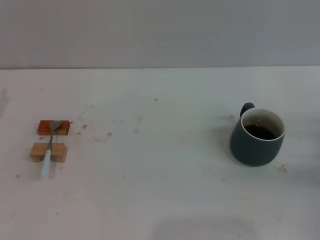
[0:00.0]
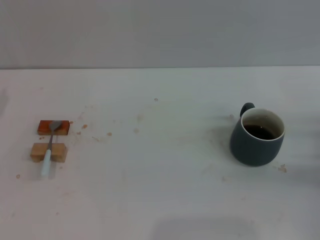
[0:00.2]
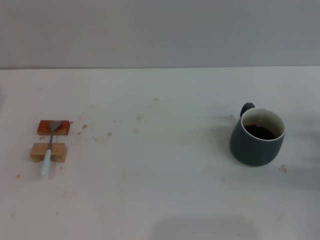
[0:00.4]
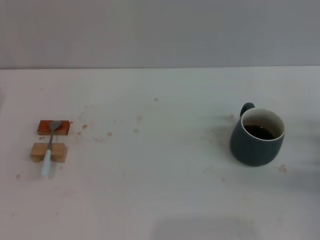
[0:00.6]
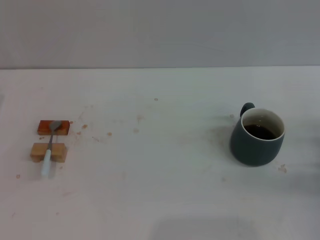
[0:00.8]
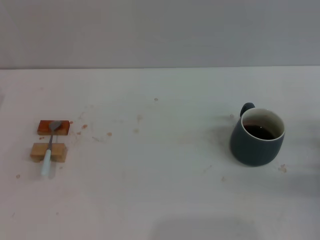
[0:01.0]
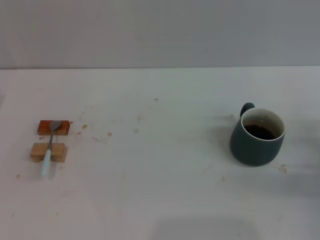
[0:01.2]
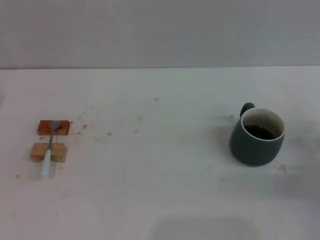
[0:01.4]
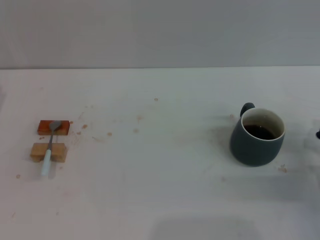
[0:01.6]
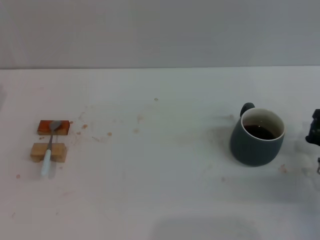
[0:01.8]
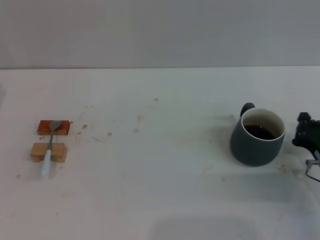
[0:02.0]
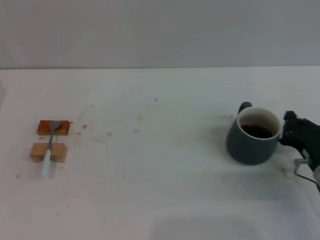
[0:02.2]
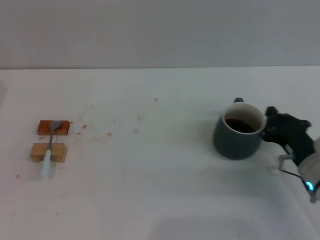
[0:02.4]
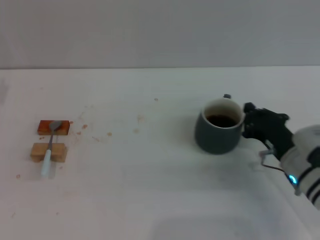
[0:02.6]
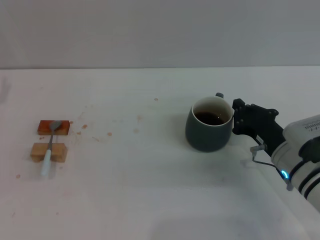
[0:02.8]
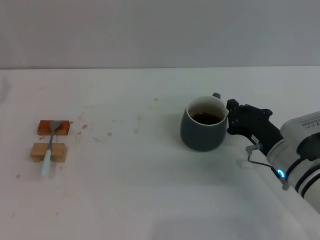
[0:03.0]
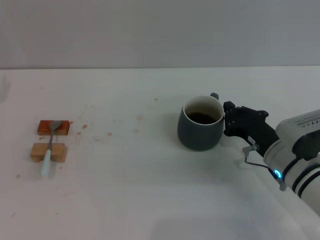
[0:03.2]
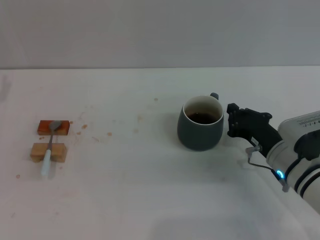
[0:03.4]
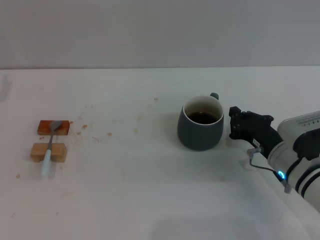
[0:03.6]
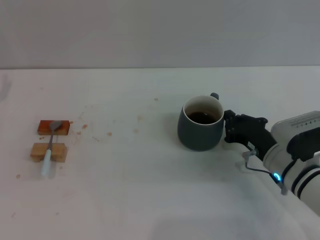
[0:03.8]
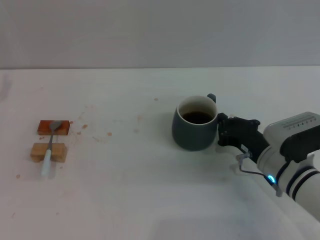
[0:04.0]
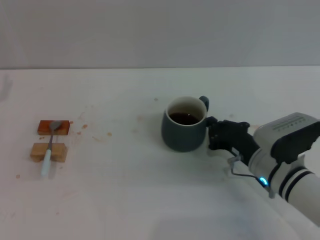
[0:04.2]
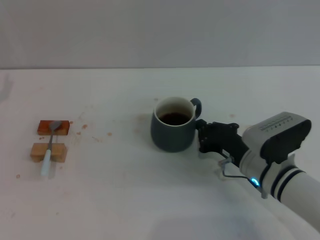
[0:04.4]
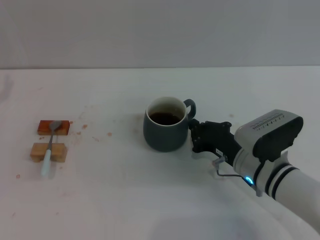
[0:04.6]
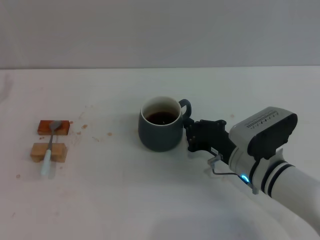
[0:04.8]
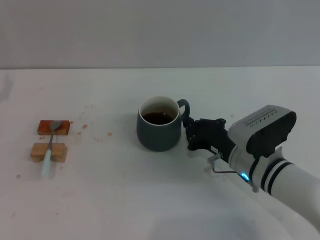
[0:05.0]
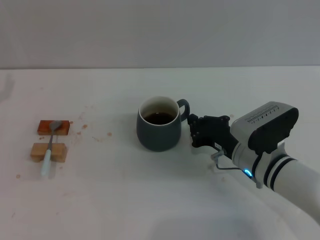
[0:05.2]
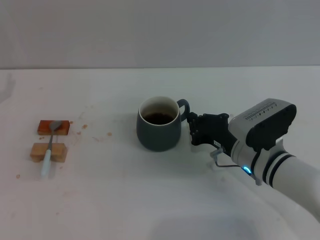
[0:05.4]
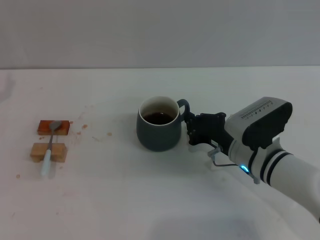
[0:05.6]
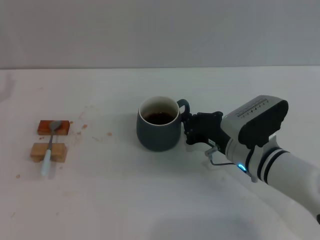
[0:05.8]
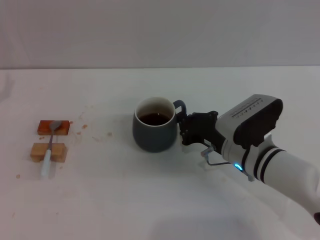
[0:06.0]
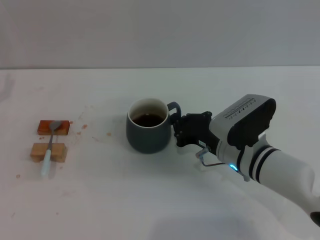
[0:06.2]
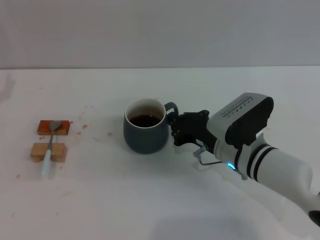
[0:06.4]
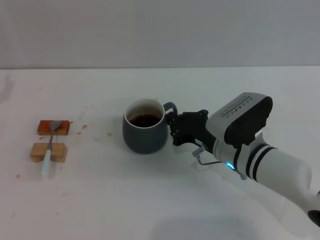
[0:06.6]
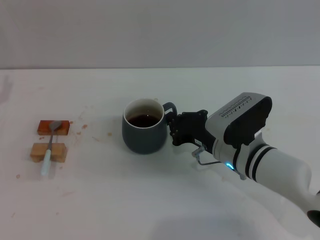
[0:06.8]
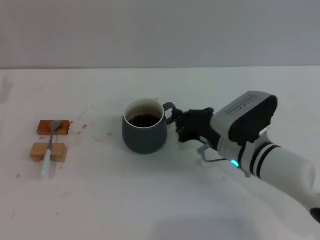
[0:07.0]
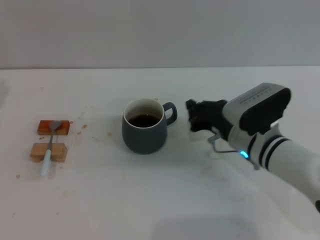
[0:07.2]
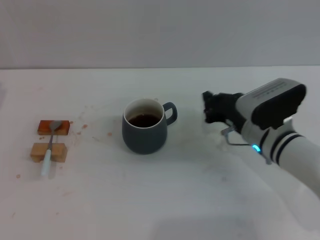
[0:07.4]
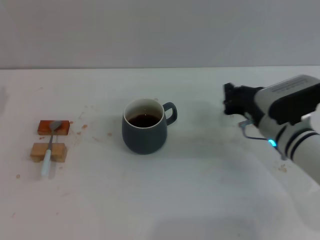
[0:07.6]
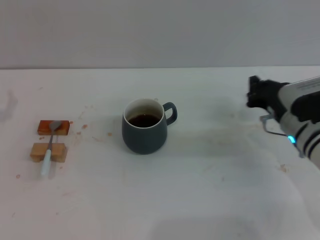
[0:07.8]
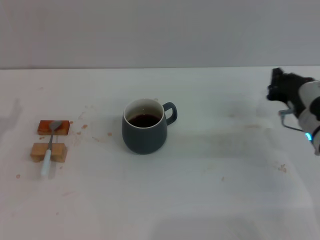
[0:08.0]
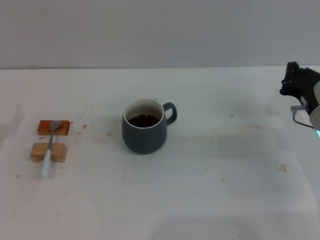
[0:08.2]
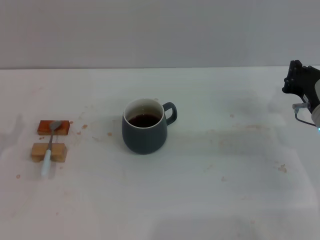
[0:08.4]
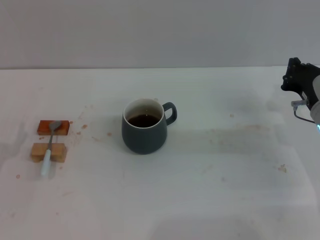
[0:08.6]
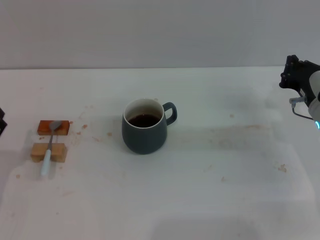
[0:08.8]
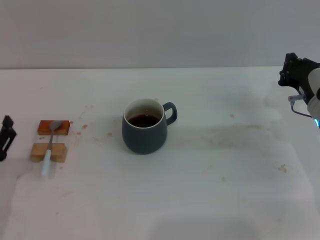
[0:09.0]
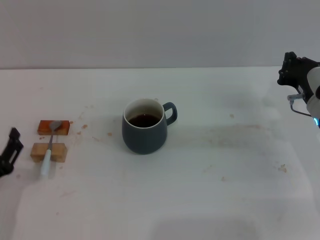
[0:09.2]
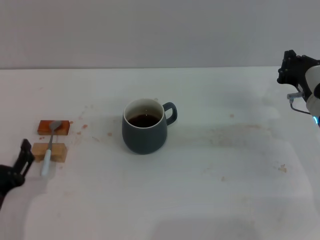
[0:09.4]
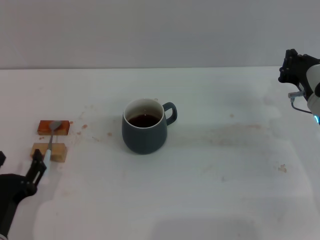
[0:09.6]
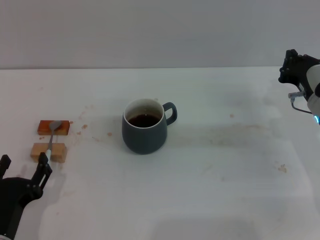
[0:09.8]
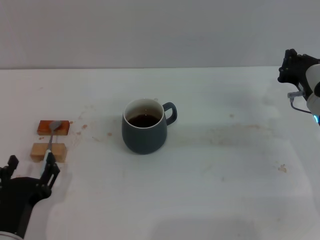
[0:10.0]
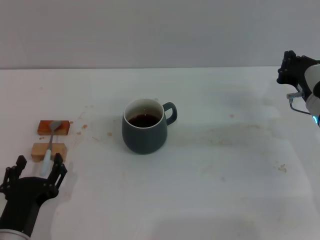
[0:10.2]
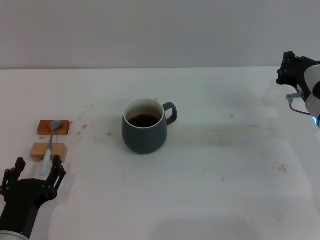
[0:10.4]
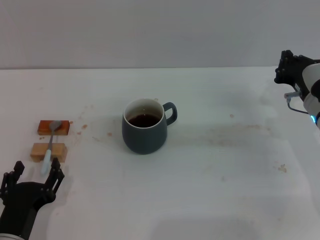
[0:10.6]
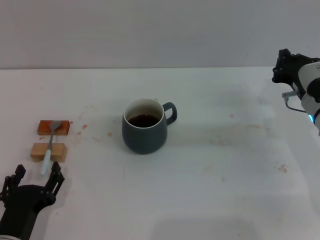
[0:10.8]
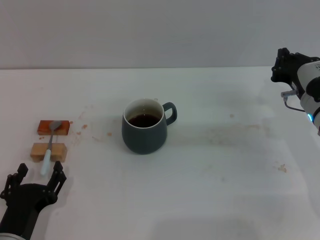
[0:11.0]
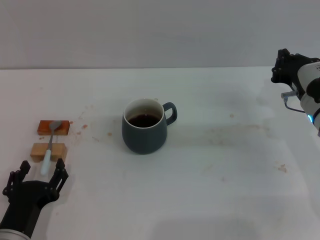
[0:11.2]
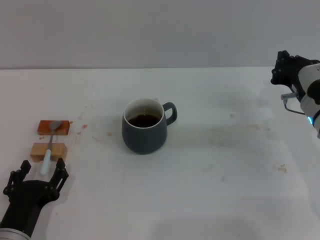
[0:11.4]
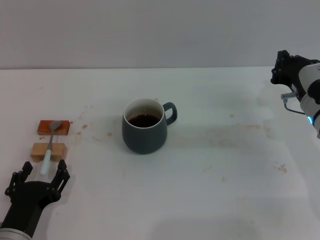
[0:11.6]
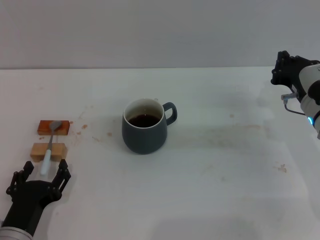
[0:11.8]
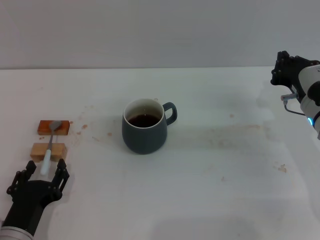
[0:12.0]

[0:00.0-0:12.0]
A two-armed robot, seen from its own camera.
Task of the whole recording: Move the grey cup to the center, lift the blue spoon, stir it three times in the cup, and put the spoon into the cup.
Step, 0:00.0 to 0:07.2: Move the cup with coffee to the center of view with the right gripper.
0:00.0 to 0:01.6: The right gripper ends up about 5 cm from where it was, and closes.
0:01.6 to 0:03.0: The right gripper is displaced to the left by roughly 10 cm.
0:03.0 to 0:04.4: The grippers move only a little.
0:04.4 to 0:06.0: The grippers make only small movements.
0:06.0 to 0:07.6: The right gripper is displaced to the right by about 5 cm.
0:07.6 to 0:09.0: The right gripper moves to the right, roughly 5 cm, while the left gripper moves backward, to the right and downward, about 15 cm.
0:09.0 to 0:10.4: The left gripper shifts roughly 10 cm to the right.
0:10.4 to 0:12.0: There are only small adjustments of the grippers.

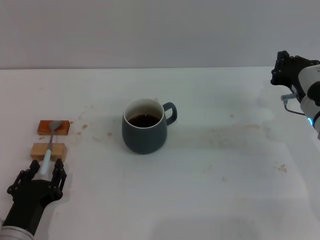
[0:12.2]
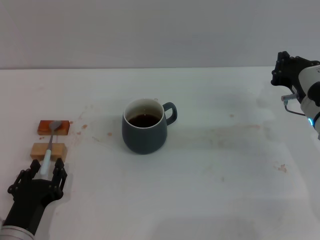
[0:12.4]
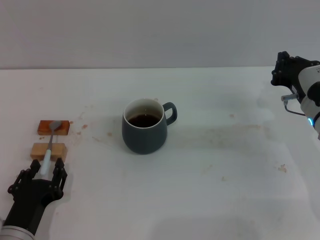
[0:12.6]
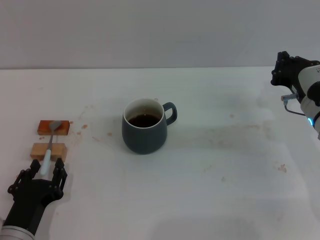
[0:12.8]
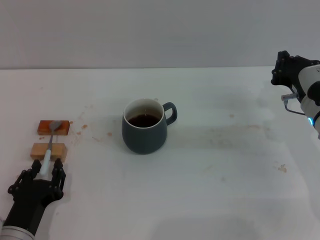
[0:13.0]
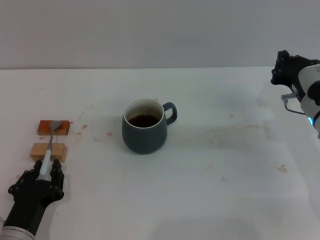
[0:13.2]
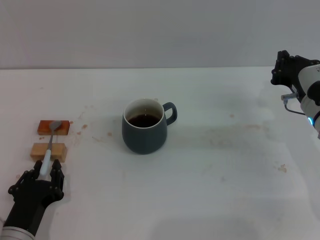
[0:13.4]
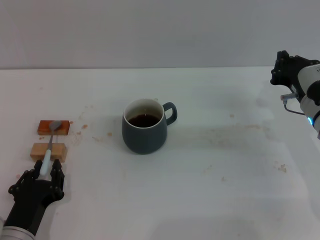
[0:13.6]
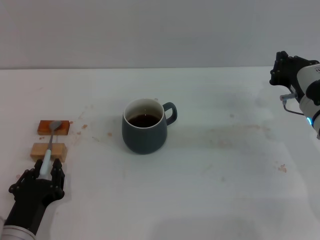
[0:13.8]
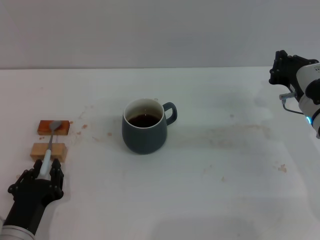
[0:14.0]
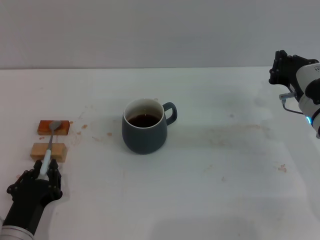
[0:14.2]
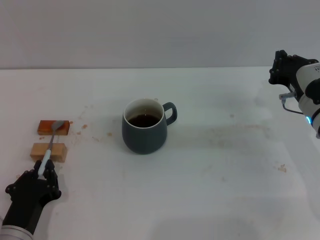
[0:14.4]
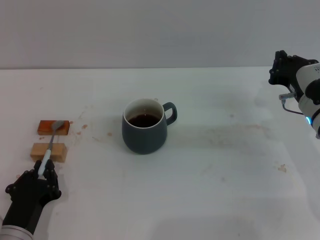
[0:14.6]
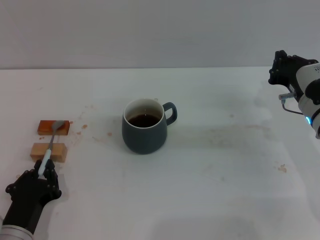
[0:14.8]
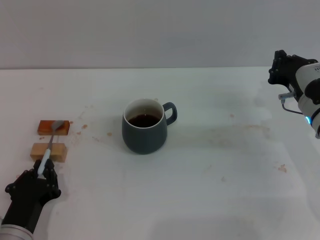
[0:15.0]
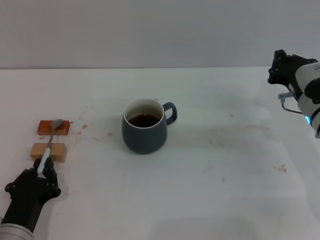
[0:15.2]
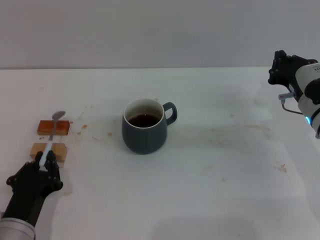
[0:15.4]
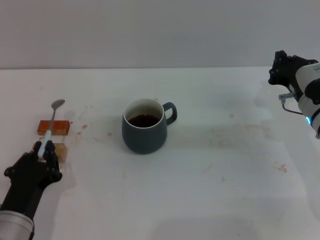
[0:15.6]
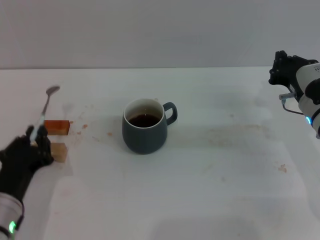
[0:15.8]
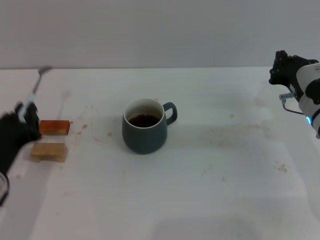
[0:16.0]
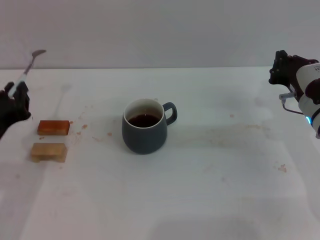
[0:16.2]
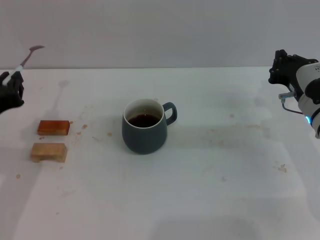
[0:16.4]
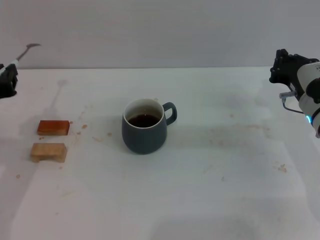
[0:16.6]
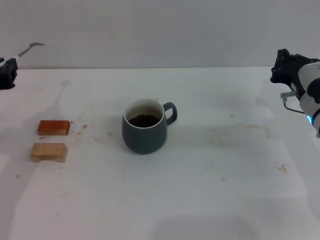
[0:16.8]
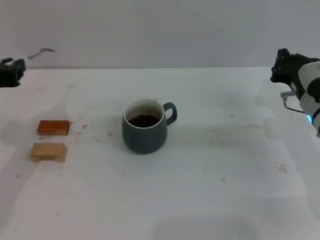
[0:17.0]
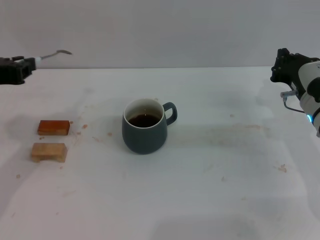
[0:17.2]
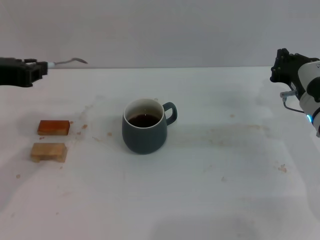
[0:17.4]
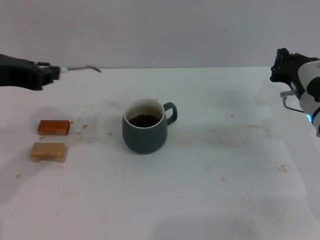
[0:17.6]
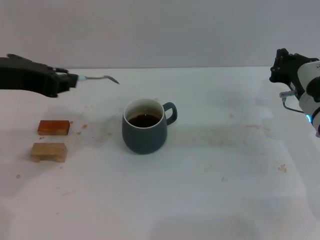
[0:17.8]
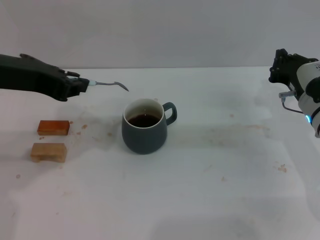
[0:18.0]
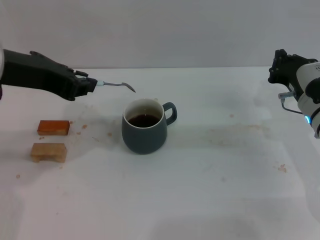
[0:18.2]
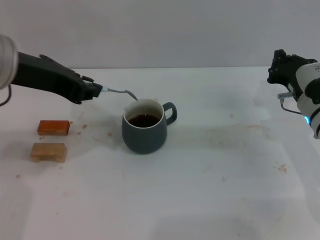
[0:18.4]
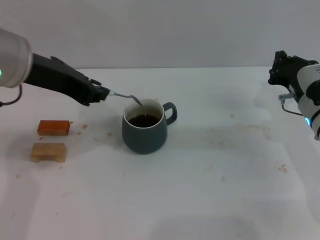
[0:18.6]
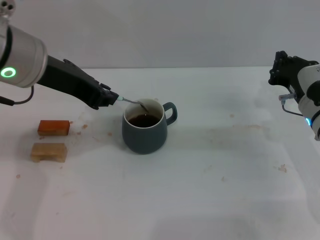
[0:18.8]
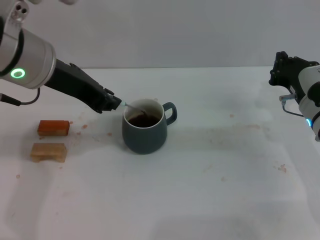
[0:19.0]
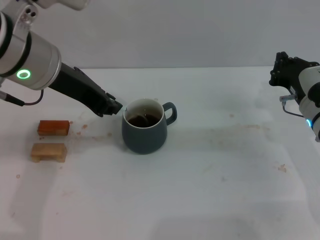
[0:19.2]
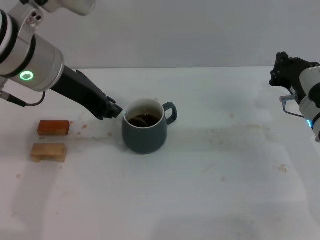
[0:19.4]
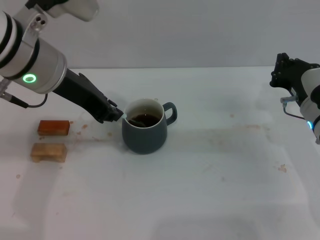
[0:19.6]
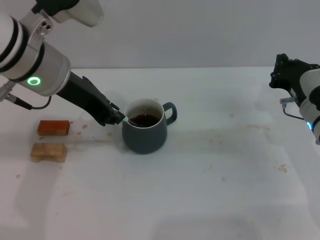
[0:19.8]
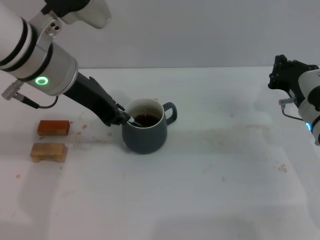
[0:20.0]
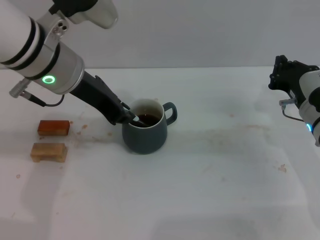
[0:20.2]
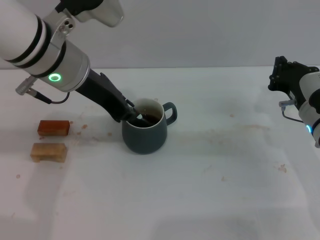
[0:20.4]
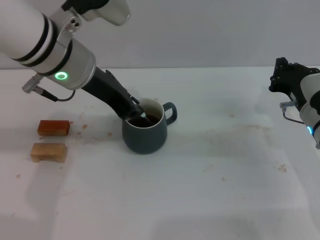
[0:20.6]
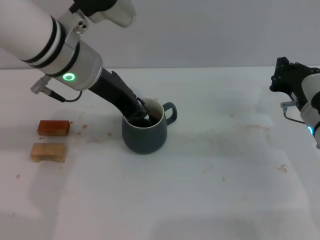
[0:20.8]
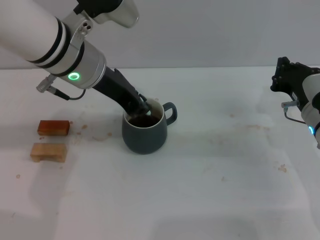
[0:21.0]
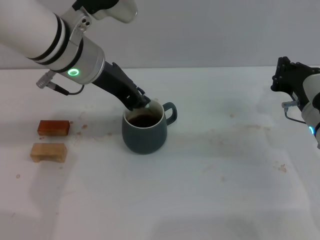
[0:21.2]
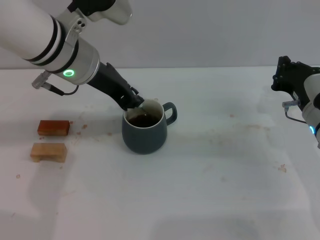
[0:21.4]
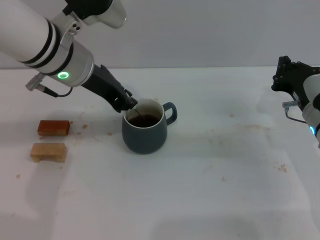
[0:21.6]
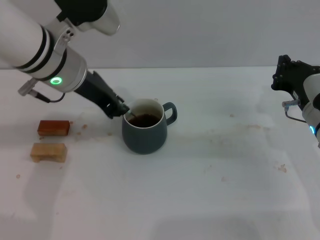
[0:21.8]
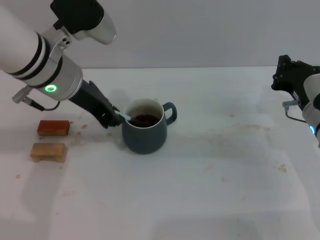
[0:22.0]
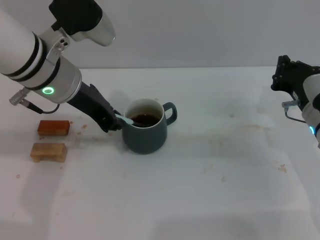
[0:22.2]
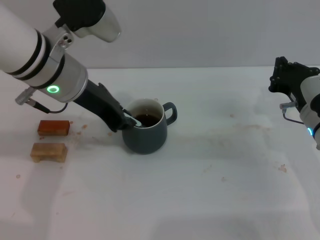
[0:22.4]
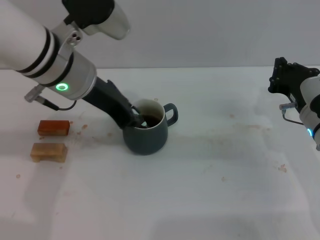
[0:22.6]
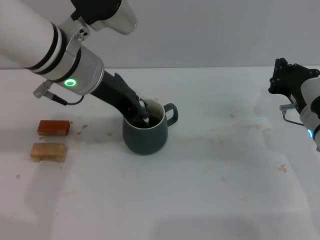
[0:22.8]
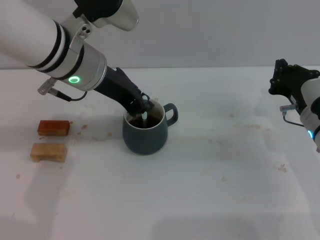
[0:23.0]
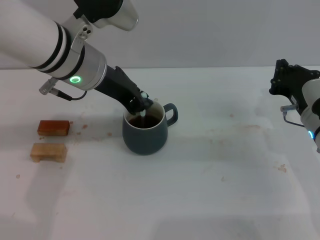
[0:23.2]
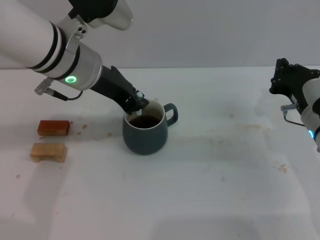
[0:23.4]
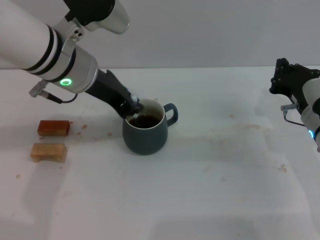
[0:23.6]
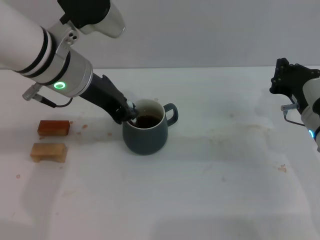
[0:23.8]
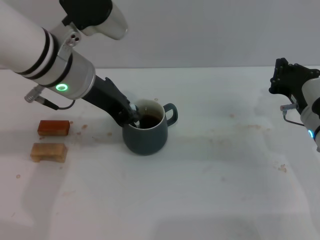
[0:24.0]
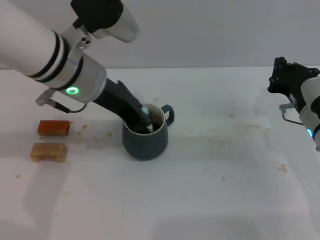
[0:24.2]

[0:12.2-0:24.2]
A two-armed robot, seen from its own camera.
Task of the whole recording: Move the grey cup to the center, lift the blue spoon, stir it three times in the cup, and put the spoon into the cup.
Step, 0:12.2 to 0:16.0: Pick up the spoon with the left gripper.
0:12.2 to 0:13.8: The left gripper closes up.
0:13.8 to 0:15.2: Both grippers stay about where they are.
0:15.2 to 0:16.6: The left gripper heads upward and forward, covering roughly 20 cm.
0:16.6 to 0:18.2: The left gripper shifts roughly 15 cm upward and to the right.
0:18.2 to 0:19.8: The left gripper goes some 5 cm forward.
0:19.8 to 0:24.2: There are only small adjustments of the grippers.
